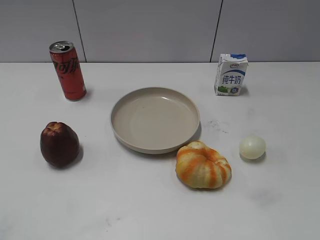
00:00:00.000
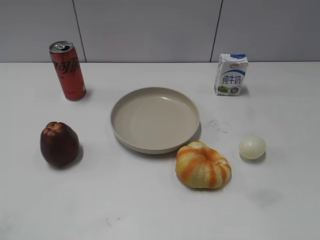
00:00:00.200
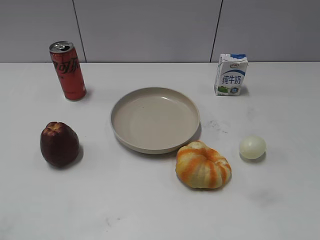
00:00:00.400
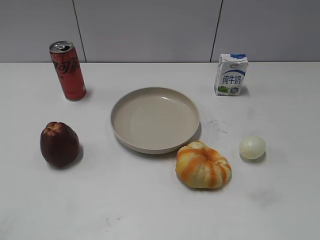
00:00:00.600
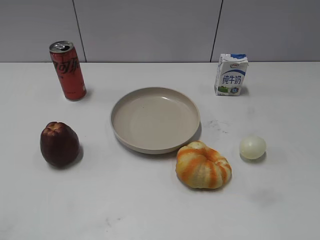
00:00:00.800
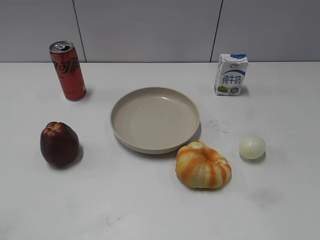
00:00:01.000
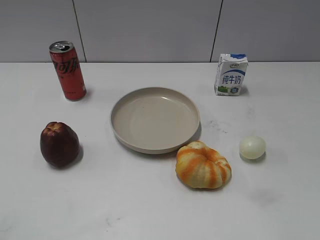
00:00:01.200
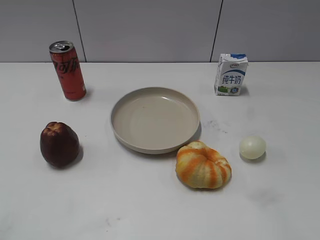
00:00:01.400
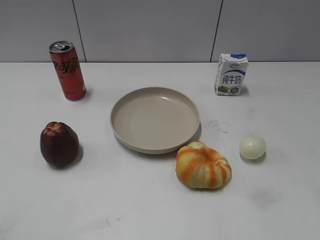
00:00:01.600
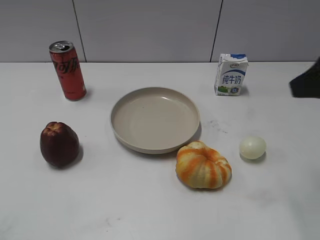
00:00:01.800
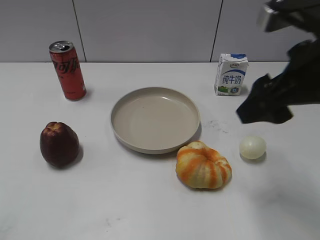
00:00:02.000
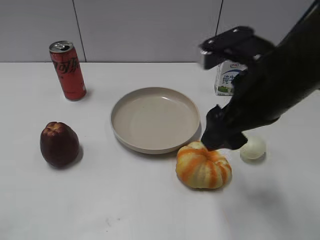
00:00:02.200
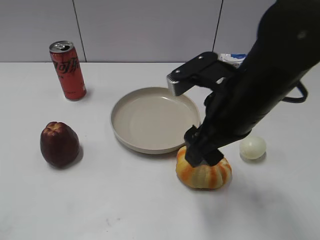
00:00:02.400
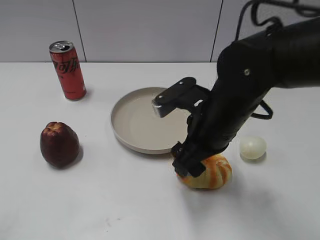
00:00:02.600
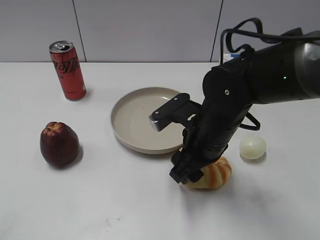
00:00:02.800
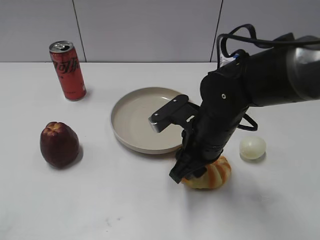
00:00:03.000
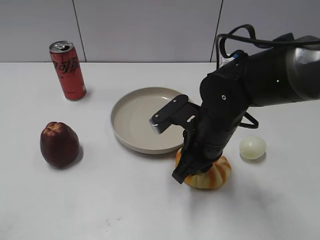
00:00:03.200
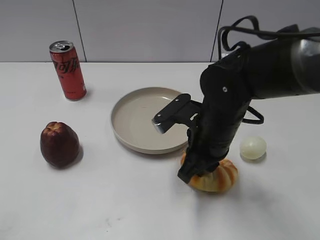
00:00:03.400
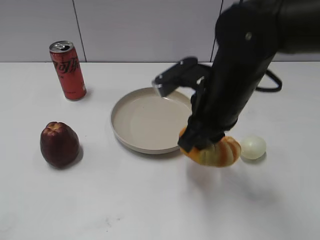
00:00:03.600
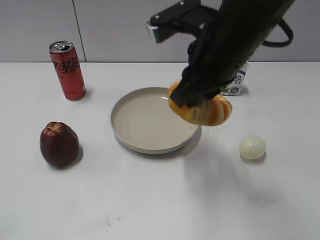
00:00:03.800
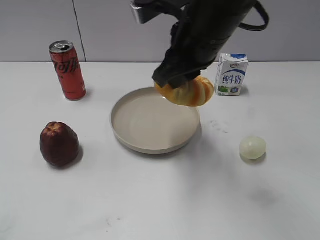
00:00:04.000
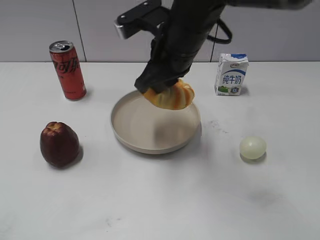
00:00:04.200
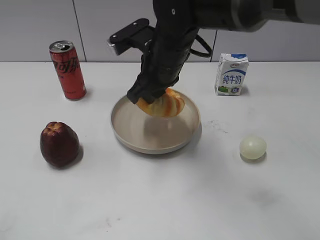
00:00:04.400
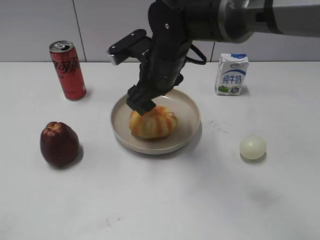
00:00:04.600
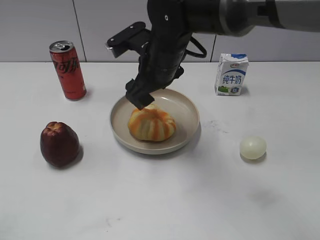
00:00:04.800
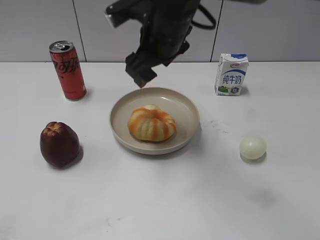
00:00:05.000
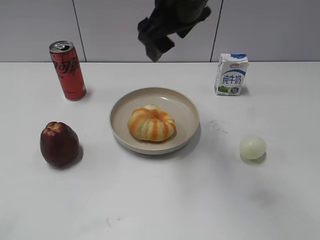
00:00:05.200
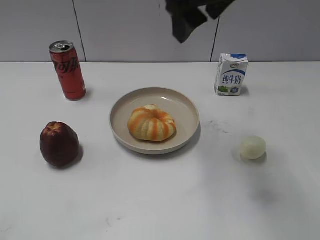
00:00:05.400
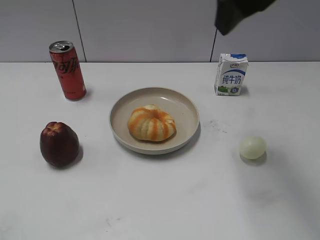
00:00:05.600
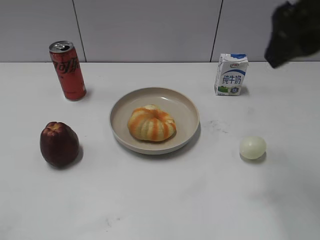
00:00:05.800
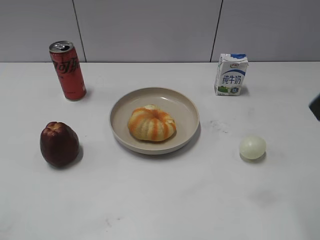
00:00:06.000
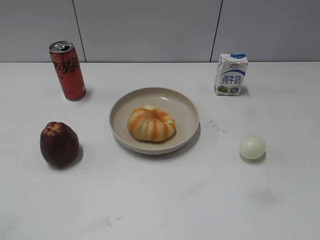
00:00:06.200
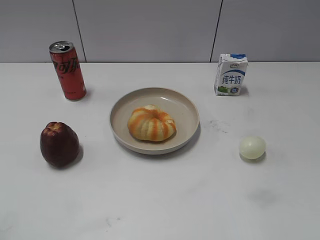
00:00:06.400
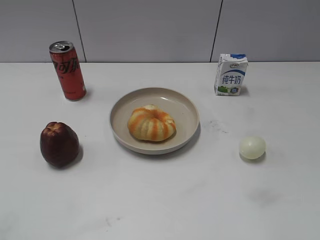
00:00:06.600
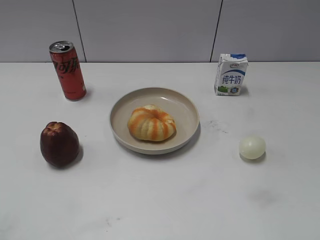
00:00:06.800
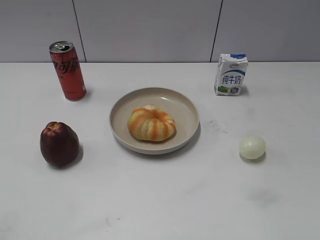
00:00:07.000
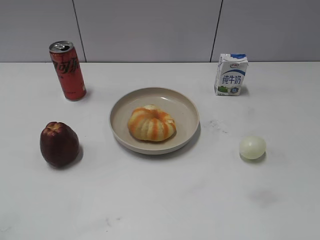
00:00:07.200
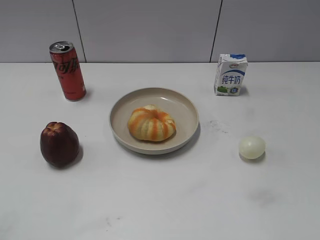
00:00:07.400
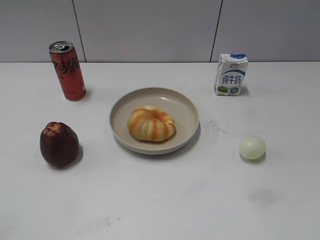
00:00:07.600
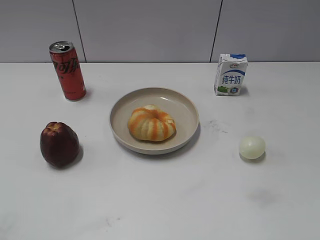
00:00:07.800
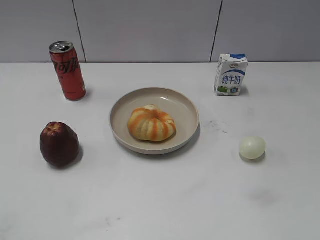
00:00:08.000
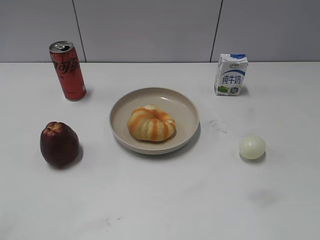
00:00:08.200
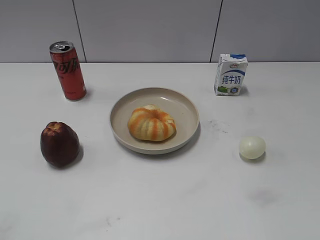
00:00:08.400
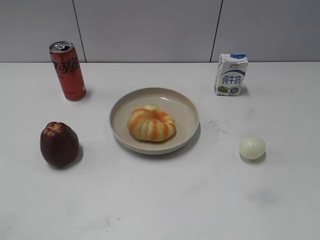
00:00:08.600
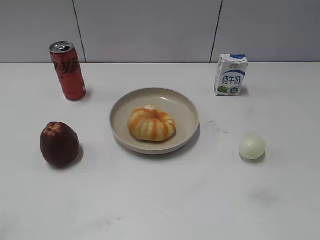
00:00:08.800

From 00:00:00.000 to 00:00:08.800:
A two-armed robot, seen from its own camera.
Step, from 00:00:00.000 to 00:00:03.000: Grasp the round bread with right gripper.
Step, from 00:00:03.400 to 00:00:04.800: Place the round bread on the plate with right gripper.
From 00:00:01.400 to 00:00:03.000: The right gripper moves to the left, downward and forward, approximately 35 cm, and closes.
From 00:00:03.000 to 00:00:04.400: The right gripper shifts some 15 cm forward, to the left and upward.
From 00:00:04.400 to 00:00:05.800: The right gripper goes about 25 cm to the right, upward and backward, and opens.
From 00:00:05.800 to 00:00:07.400: The right gripper is displaced backward, to the right and downward by about 20 cm.
